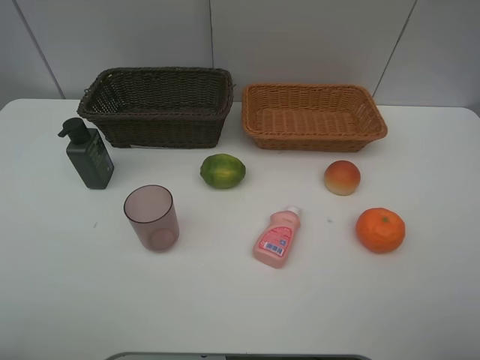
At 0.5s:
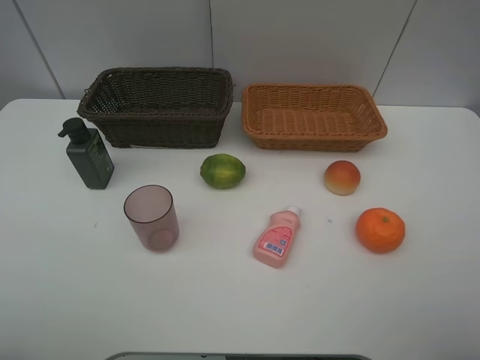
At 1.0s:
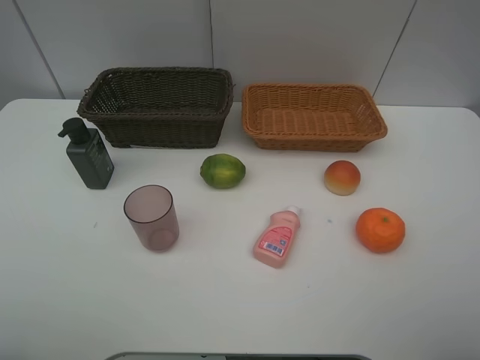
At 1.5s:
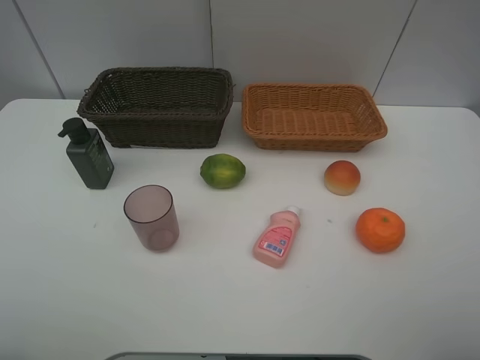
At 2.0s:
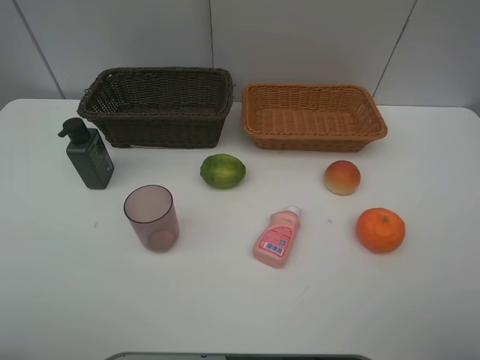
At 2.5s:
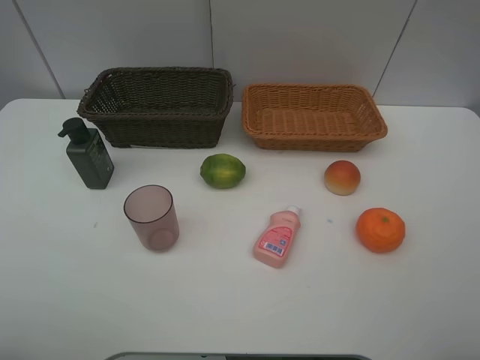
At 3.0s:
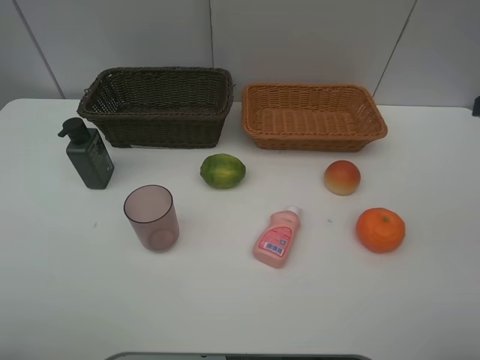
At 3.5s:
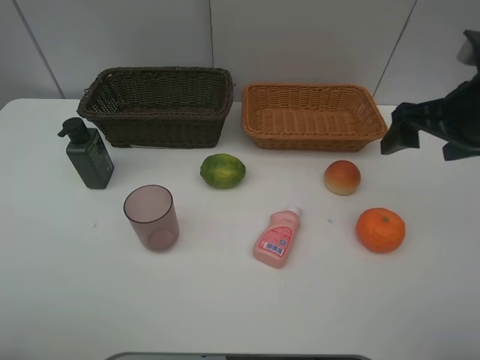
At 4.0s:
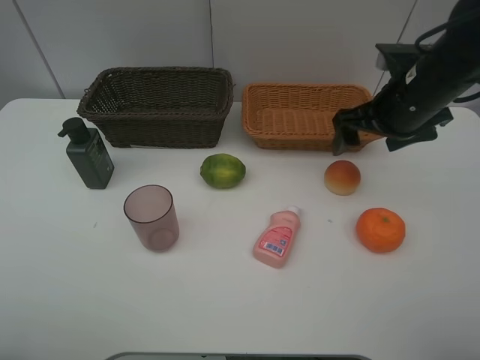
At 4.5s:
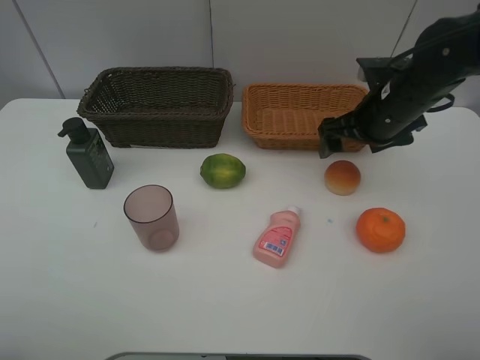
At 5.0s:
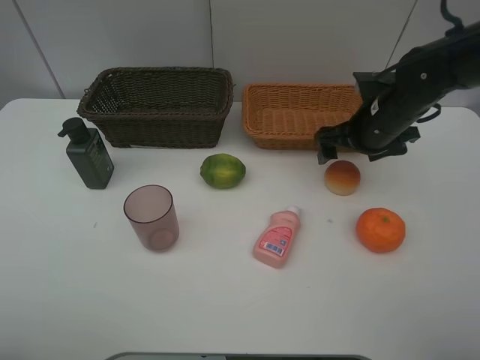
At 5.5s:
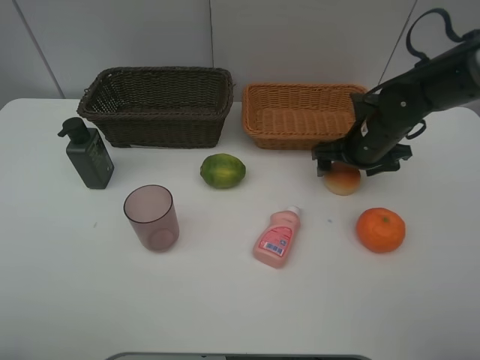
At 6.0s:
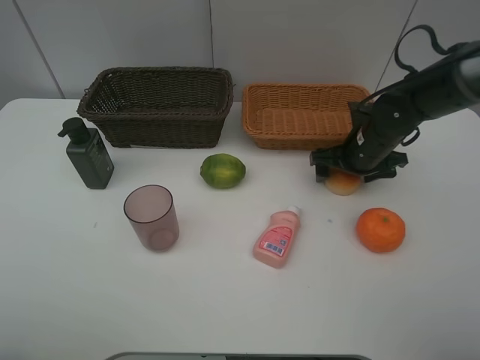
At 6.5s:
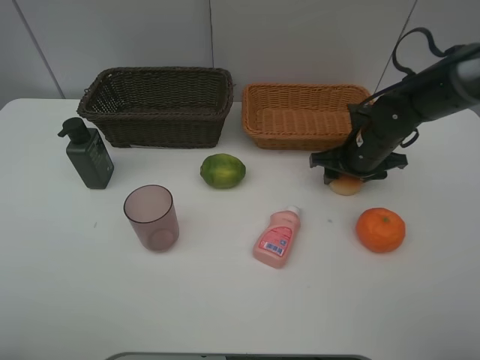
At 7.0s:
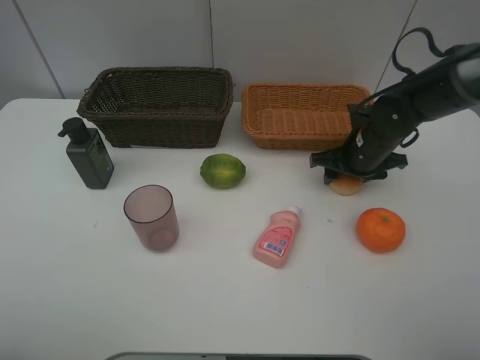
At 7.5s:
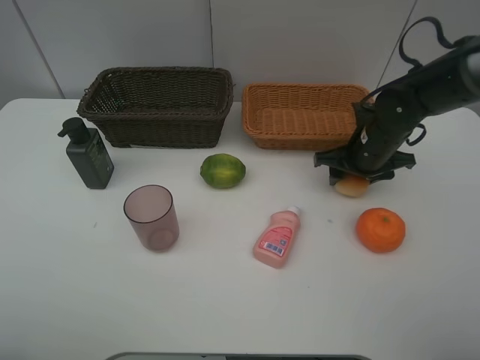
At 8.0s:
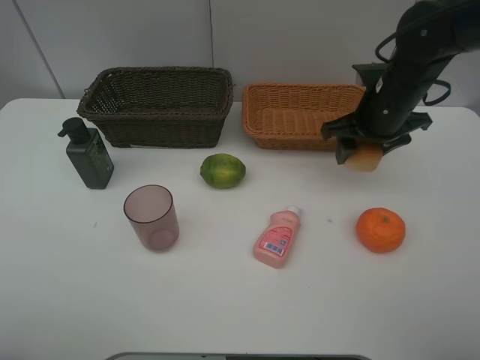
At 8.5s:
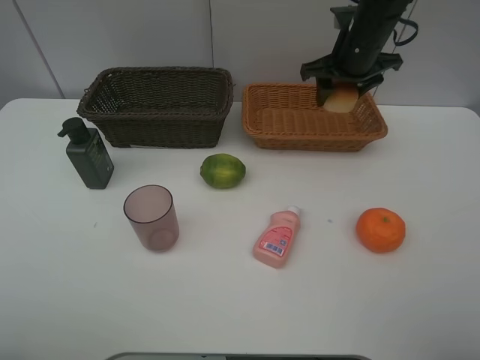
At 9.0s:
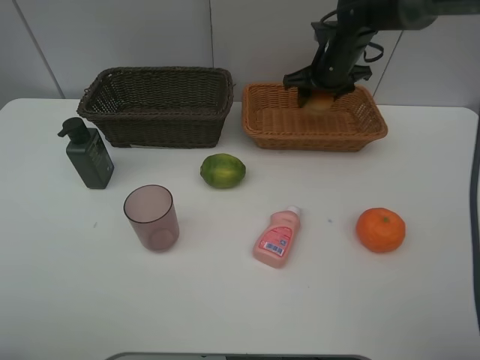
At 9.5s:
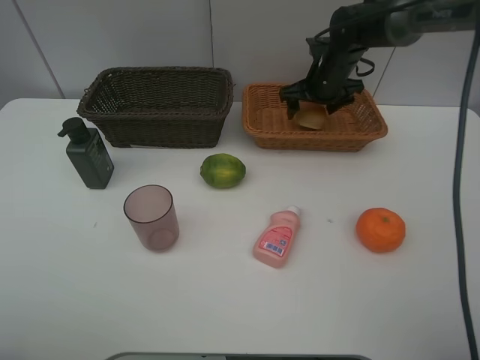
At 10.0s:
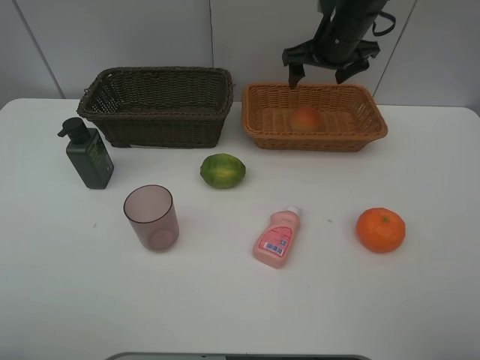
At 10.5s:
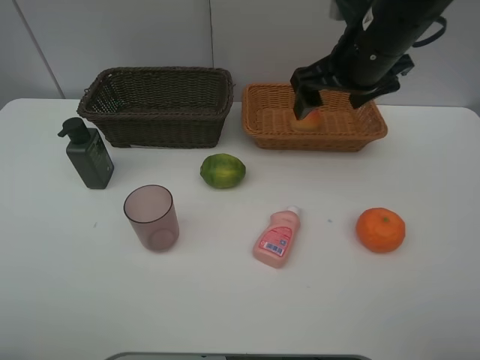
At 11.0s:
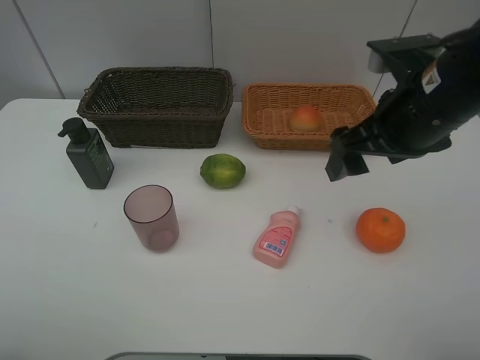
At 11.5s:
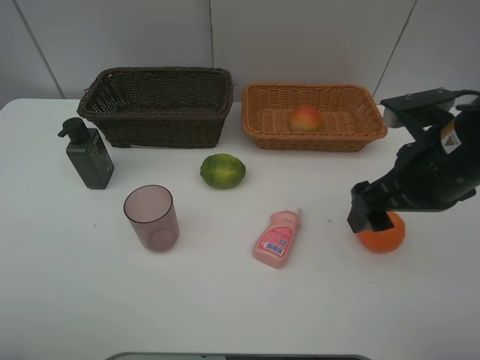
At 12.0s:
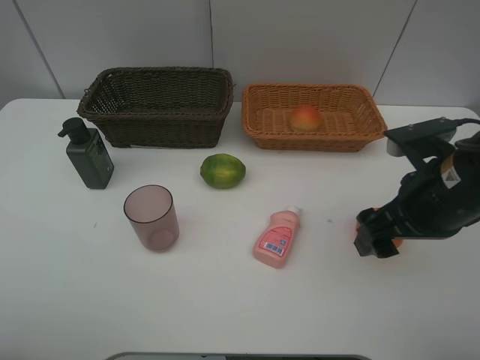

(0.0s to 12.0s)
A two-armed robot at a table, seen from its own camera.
Task of the whole recording: place multiple objects separately in different baskets.
Step, 0.0s - 7.5s: Pick up the bread with right gripper.
Step, 8.0s - 10.0s: Place the bread in the light basket with right gripper.
0.0s - 2.0s: Neither gripper changes place.
2.0s - 4.0s: The right gripper travels forward by roughly 30 cm.
4.0s - 6.0s: The right gripper moves downward, roughly 10 cm.
6.0s - 8.0s: The right gripper shifts about 10 cm upward, and closes up.
8.0s - 10.0s: The right gripper goes some 10 cm forward, and opens up.
10.0s - 12.0s: The right gripper shifts some 30 cm backward.

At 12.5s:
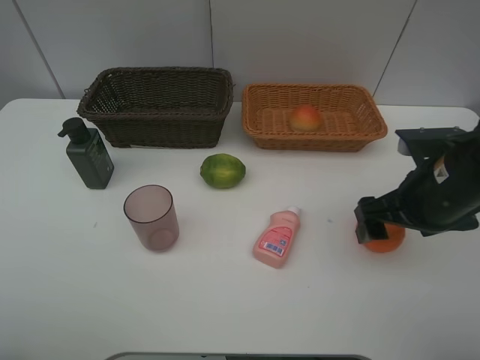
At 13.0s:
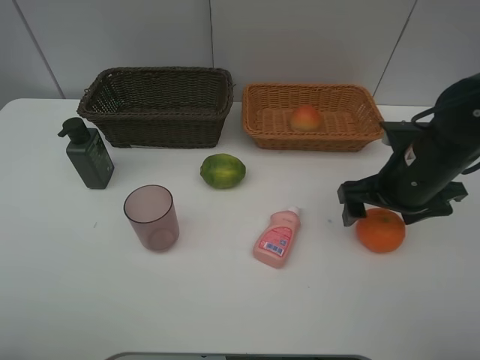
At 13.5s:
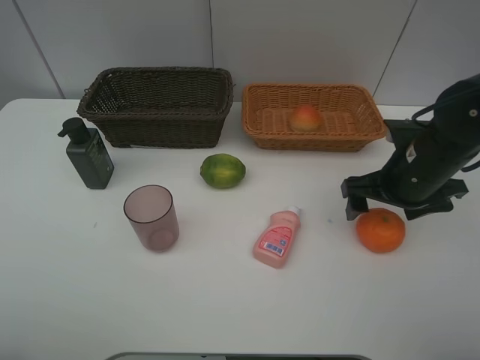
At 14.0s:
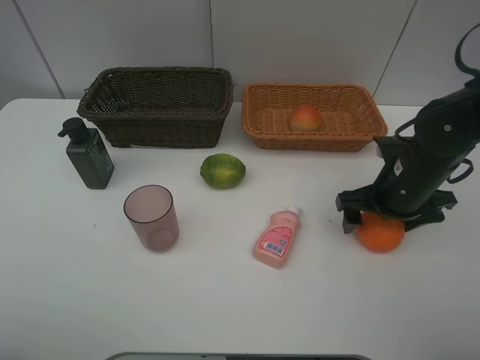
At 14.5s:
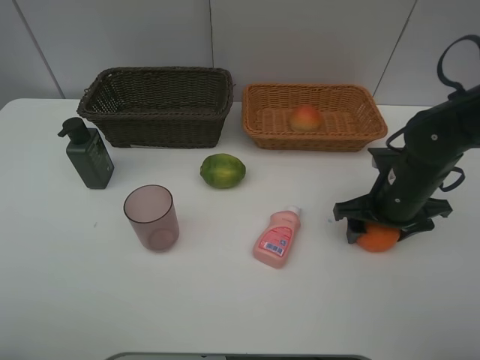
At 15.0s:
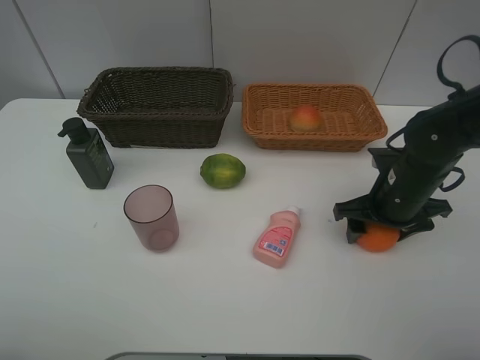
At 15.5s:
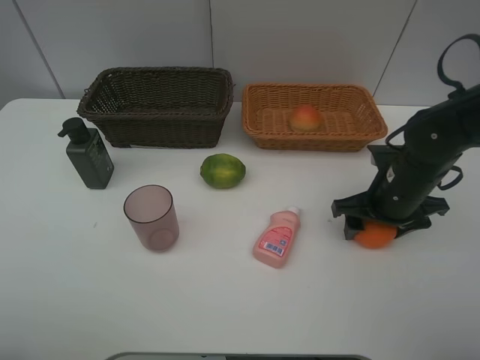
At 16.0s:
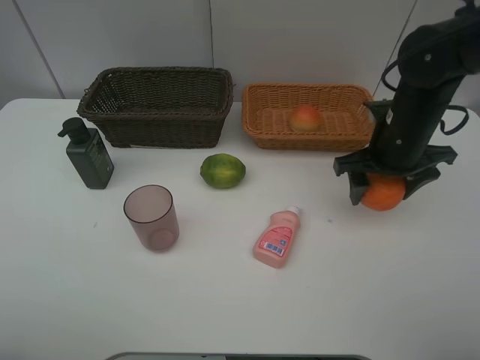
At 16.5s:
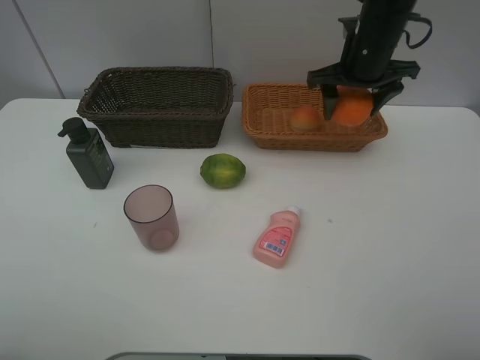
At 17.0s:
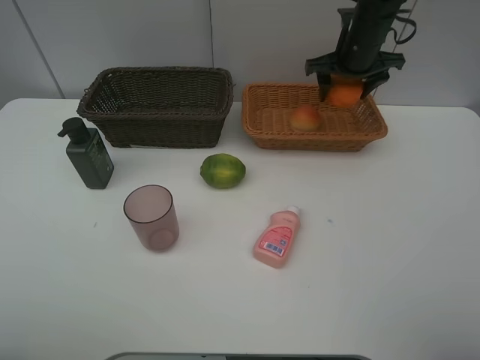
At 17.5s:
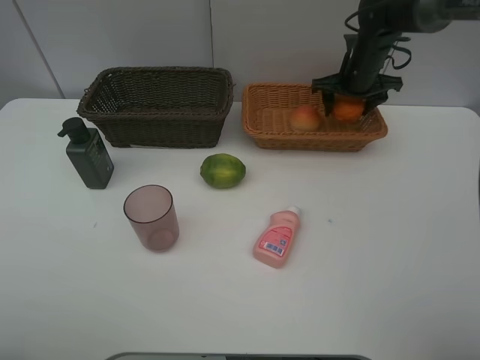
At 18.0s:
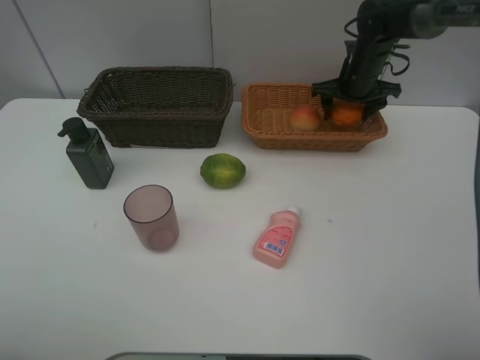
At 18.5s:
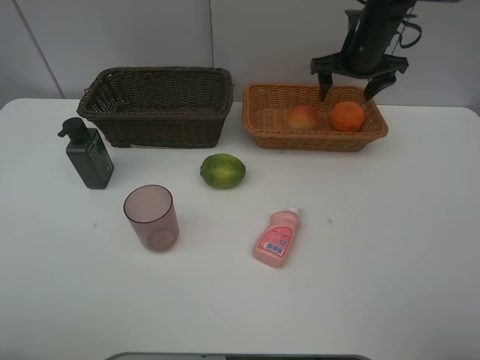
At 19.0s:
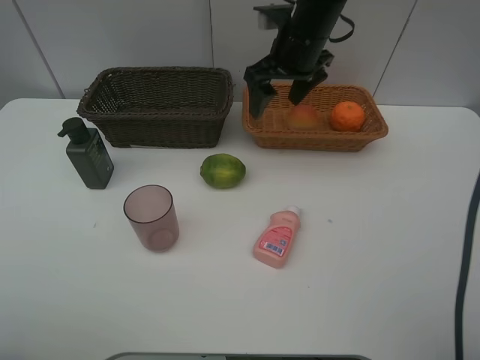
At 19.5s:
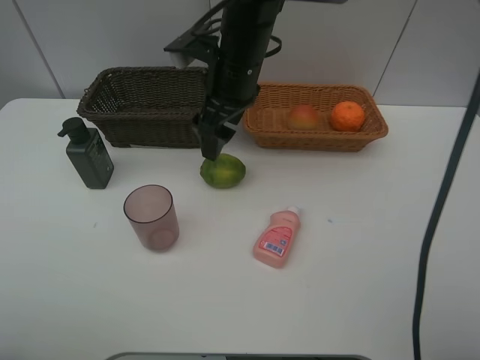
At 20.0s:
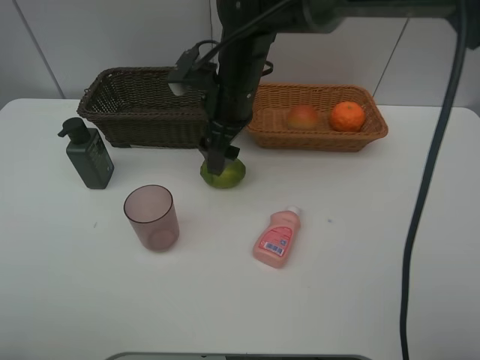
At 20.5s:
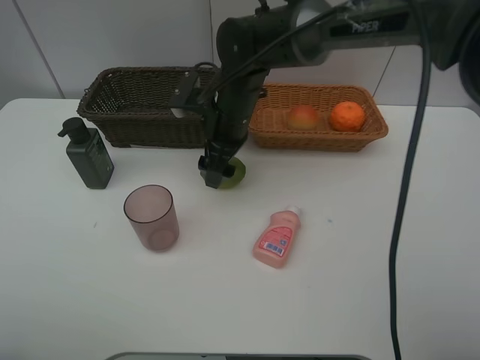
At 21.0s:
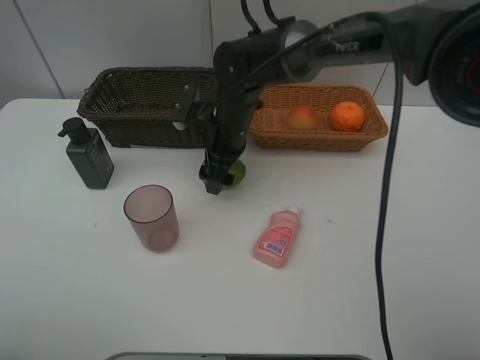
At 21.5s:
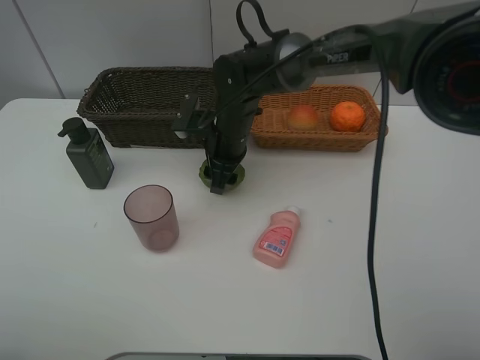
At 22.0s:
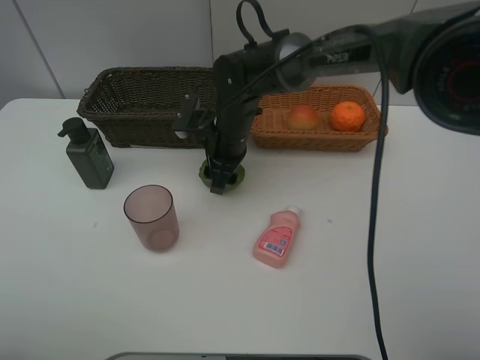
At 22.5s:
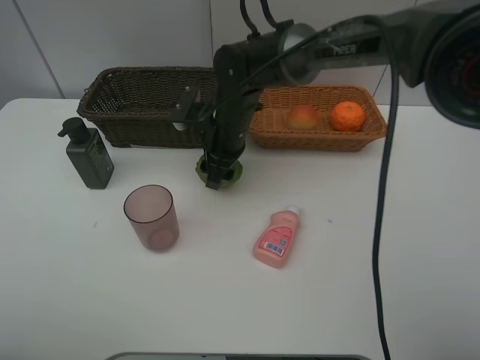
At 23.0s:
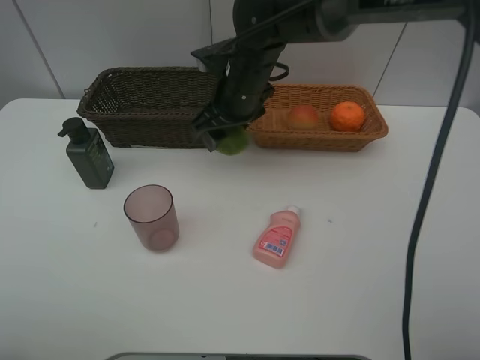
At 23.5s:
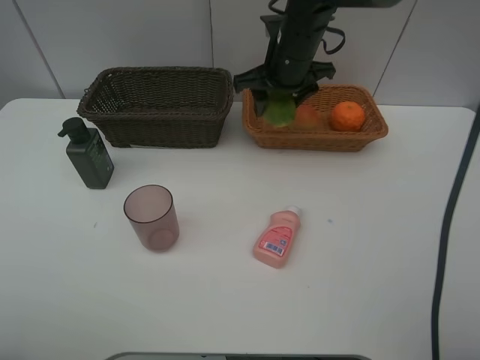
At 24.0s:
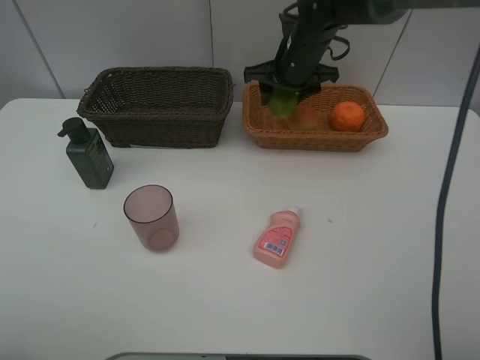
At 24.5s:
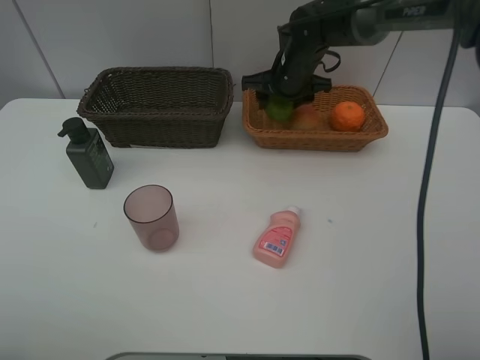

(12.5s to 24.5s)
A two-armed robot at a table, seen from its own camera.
Task of the whole recording: place multiple objects separately in different baskets.
Step, 12.5s - 15.5s: Pick up the orange with right gripper.
Step, 16.0s - 18.5s: Place the orange in the light basket with right gripper.
Step, 19.0s - 22.5s: Pick up the lime with right gripper.
12.5s - 14.5s: The right gripper goes approximately 10 cm downward and forward, and closes its fingers.
14.5s - 16.5s: The right gripper heads forward and upward, covering some 20 cm.
16.5s - 18.5s: The right gripper is displaced forward by roughly 5 cm.
18.5s - 20.5s: The right gripper heads to the left and backward, covering approximately 25 cm.
20.5s - 22.5s: The right gripper closes its fingers.
22.5s - 24.5s: The right gripper goes some 15 cm to the right and forward.

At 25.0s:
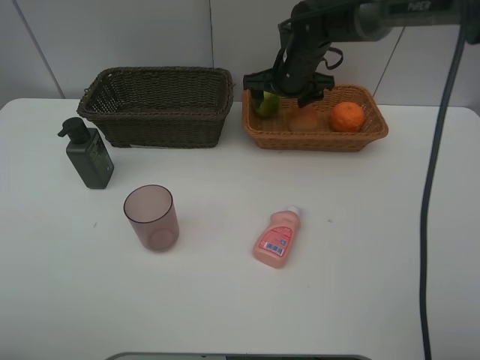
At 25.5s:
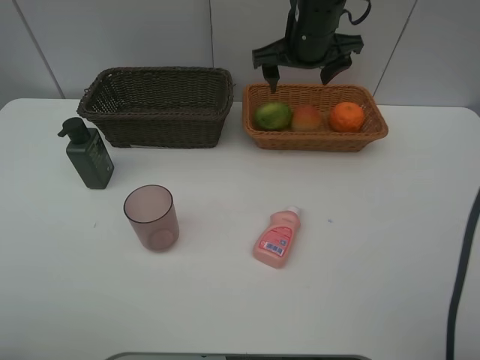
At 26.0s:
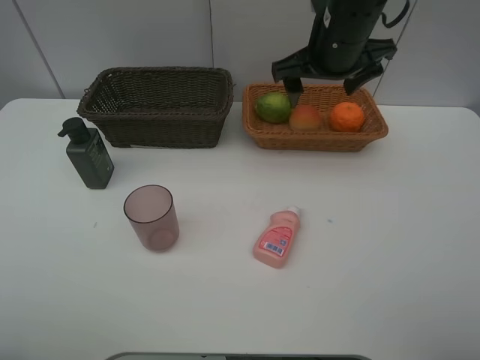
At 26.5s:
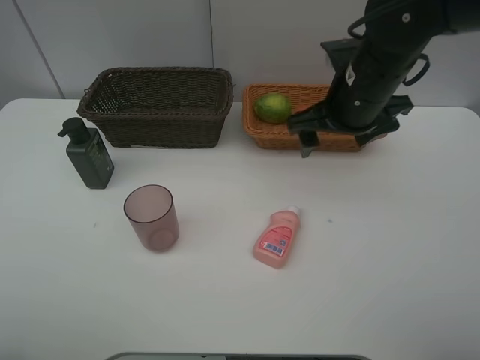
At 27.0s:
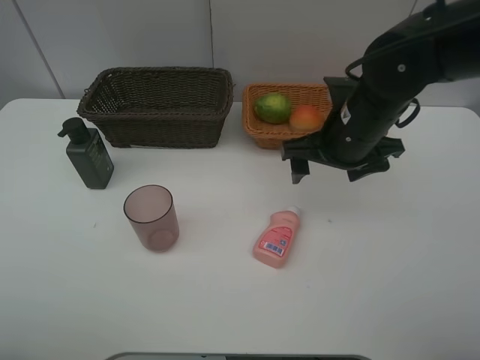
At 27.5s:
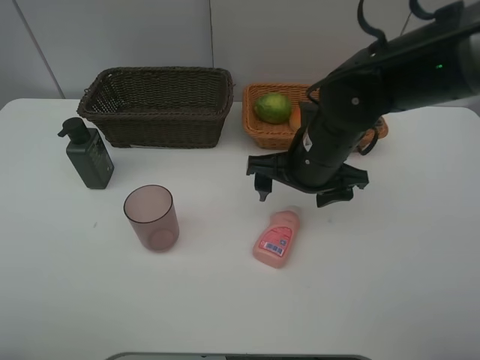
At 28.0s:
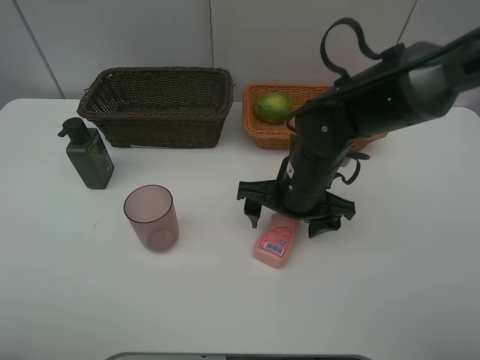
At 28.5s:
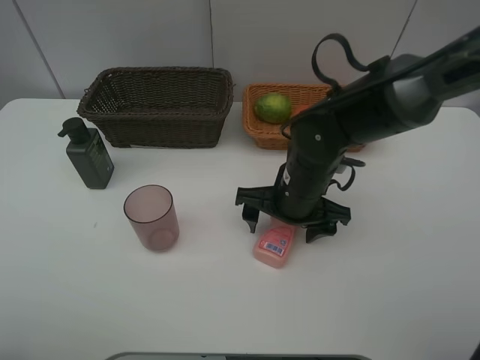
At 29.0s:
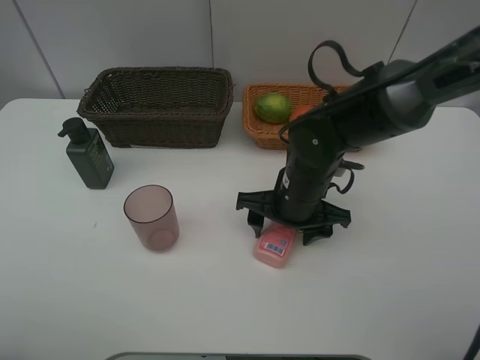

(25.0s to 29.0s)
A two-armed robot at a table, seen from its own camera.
Task of the whole recording: place multiple objects separately in different baskets.
25.0s - 27.0s: The right gripper heads backward, covering roughly 20 cm.
27.0s - 29.0s: The right gripper heads downward and to the left, covering some 10 cm.
